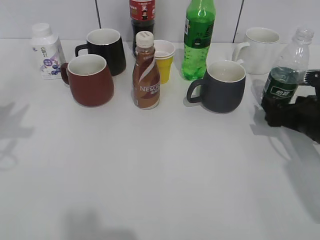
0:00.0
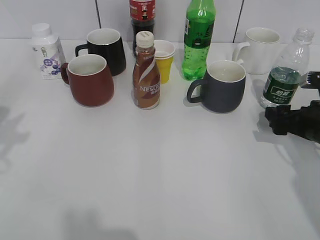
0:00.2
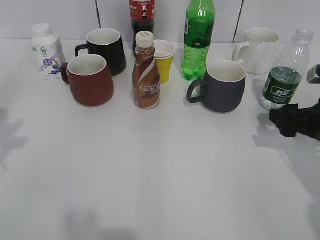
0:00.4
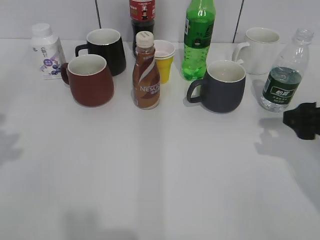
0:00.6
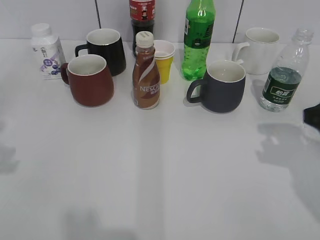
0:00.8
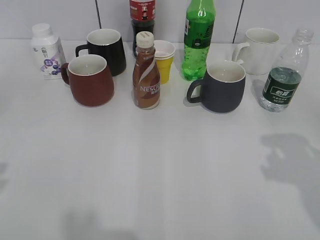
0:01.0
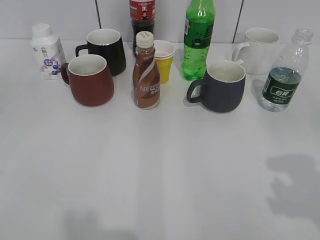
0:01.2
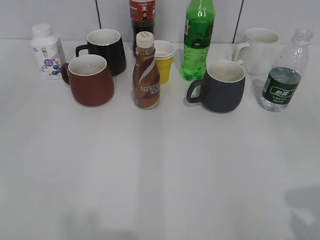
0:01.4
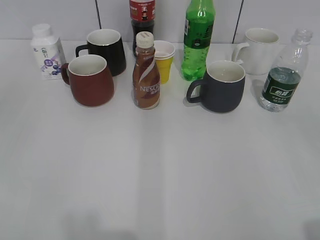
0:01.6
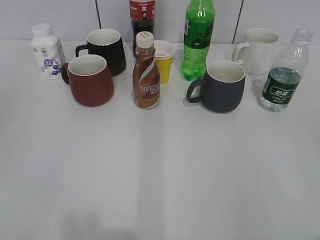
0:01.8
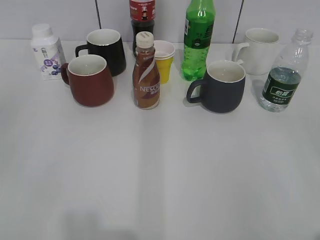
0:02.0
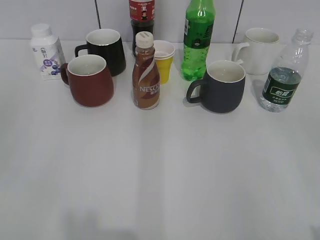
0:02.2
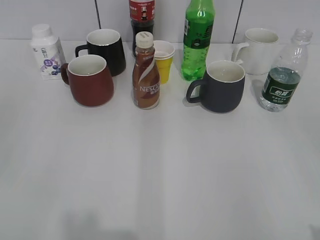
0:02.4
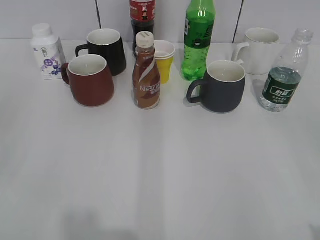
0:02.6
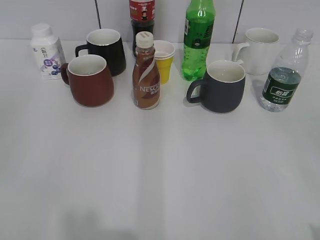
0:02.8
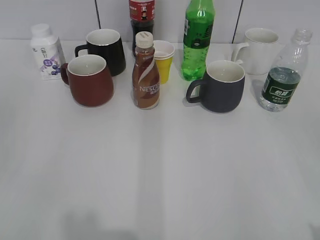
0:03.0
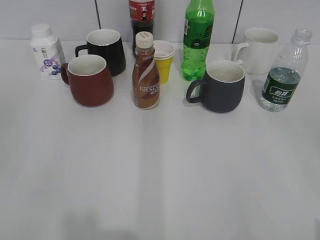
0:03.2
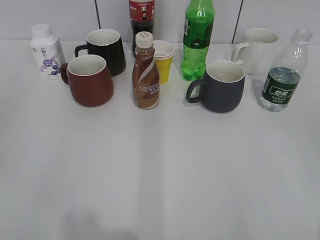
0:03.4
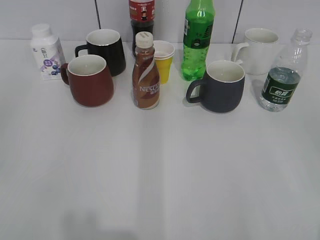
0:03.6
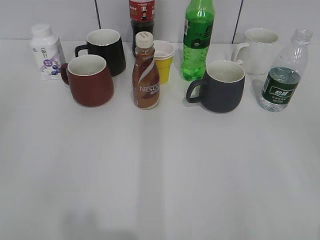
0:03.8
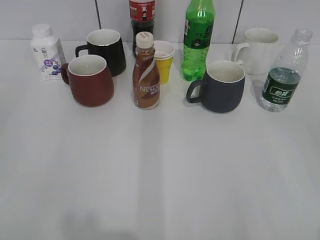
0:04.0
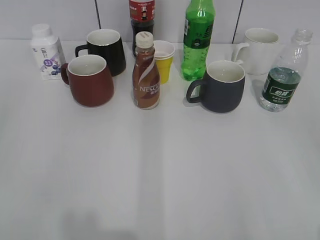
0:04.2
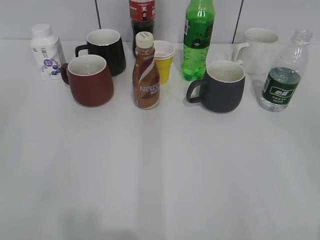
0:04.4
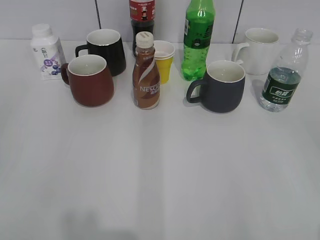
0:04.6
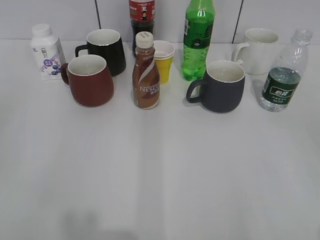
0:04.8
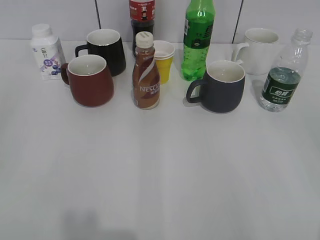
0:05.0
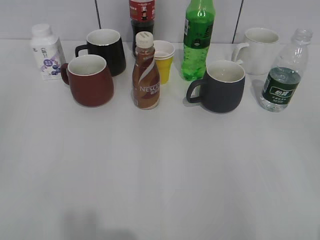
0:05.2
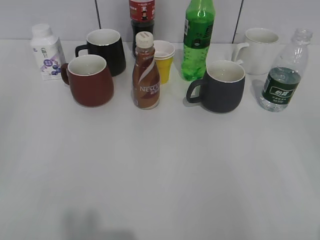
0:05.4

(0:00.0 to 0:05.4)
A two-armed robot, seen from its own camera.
0:00.0 - 0:01.4: The left gripper is displaced backward and upward by about 20 cm; the right gripper shifts about 30 cm backward and upward, and closes up.
0:04.0 - 0:05.4: Both grippers stay put.

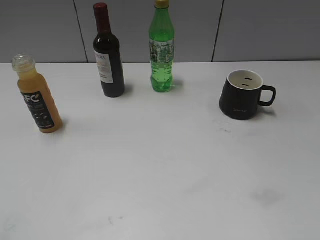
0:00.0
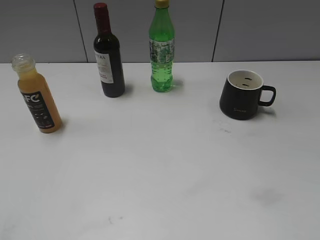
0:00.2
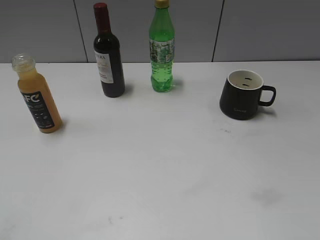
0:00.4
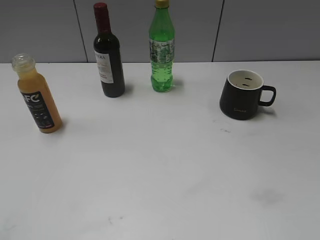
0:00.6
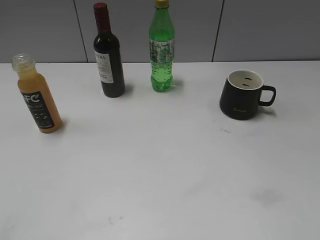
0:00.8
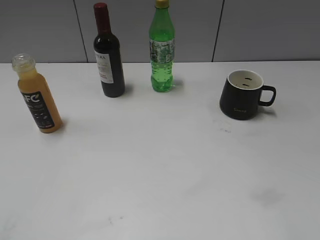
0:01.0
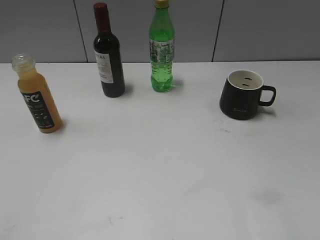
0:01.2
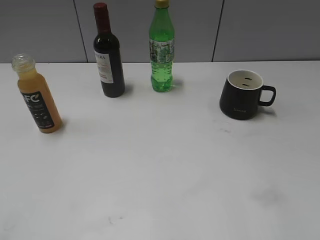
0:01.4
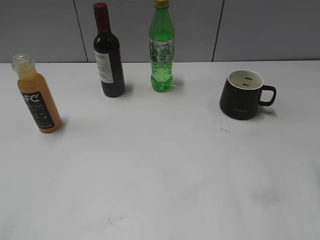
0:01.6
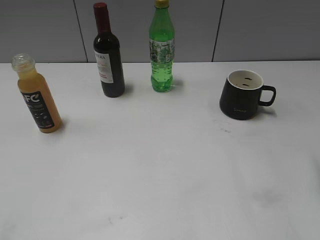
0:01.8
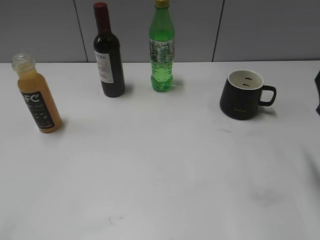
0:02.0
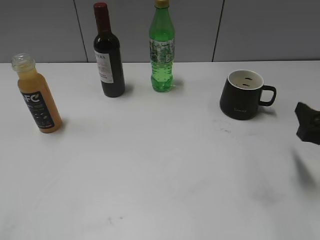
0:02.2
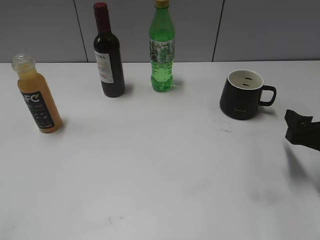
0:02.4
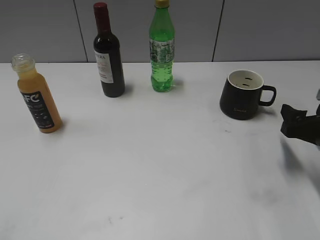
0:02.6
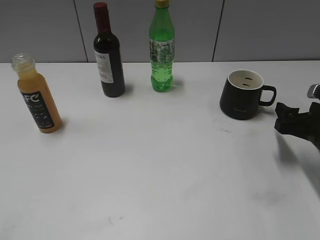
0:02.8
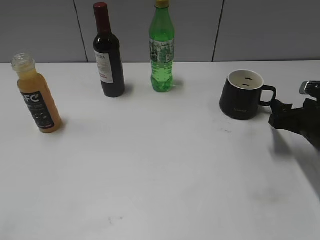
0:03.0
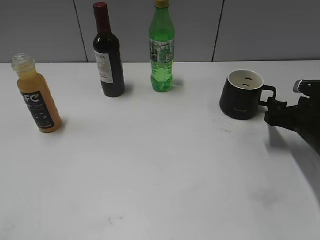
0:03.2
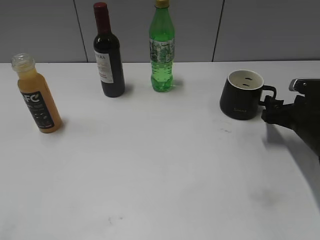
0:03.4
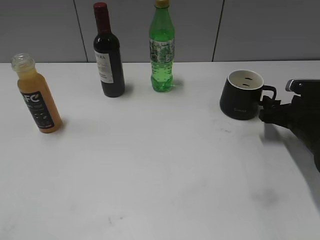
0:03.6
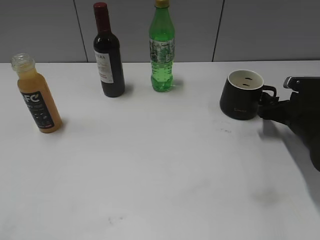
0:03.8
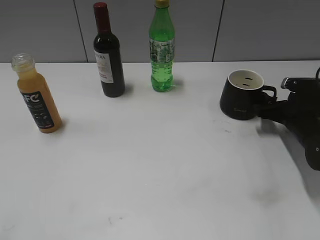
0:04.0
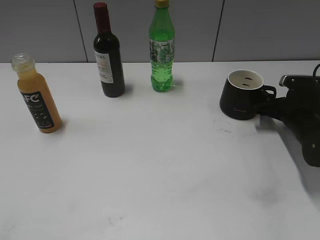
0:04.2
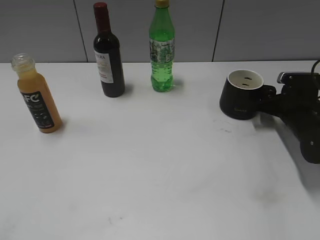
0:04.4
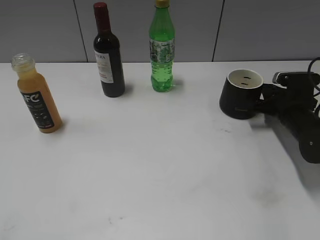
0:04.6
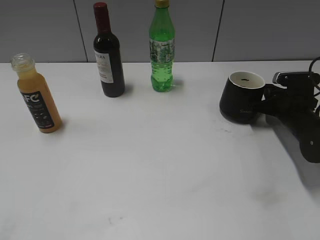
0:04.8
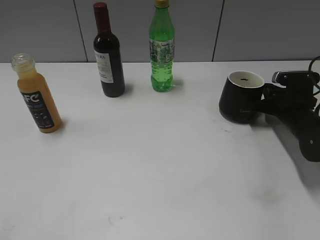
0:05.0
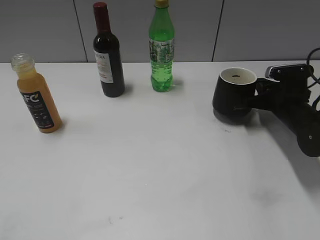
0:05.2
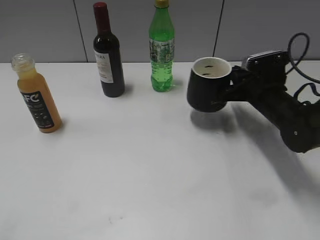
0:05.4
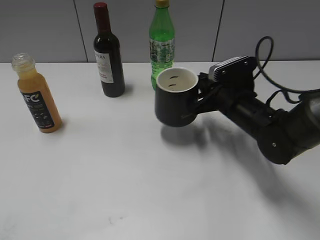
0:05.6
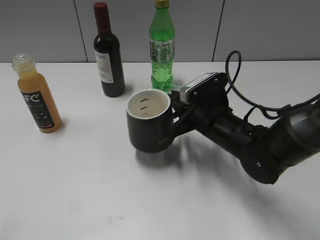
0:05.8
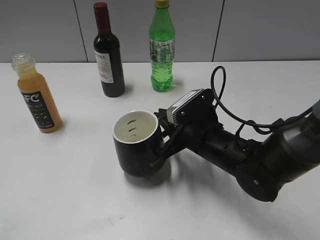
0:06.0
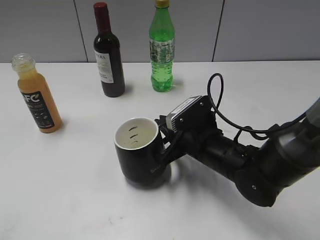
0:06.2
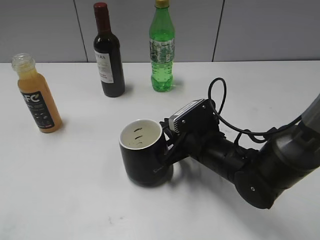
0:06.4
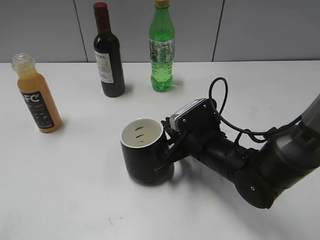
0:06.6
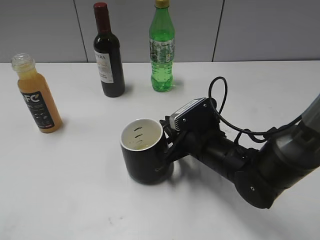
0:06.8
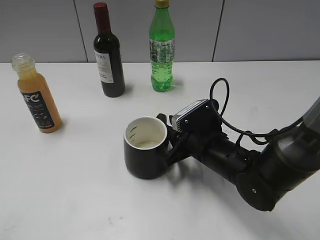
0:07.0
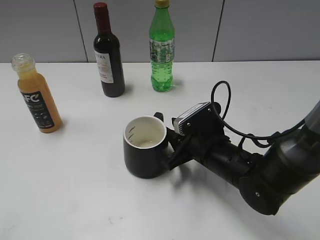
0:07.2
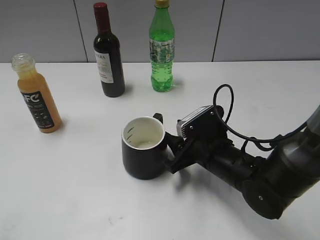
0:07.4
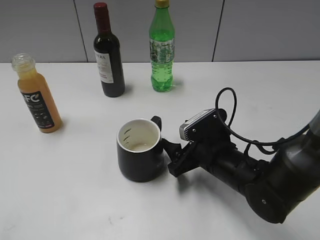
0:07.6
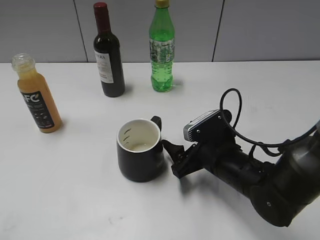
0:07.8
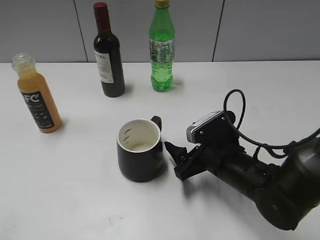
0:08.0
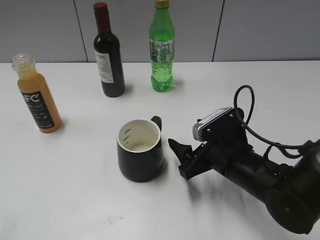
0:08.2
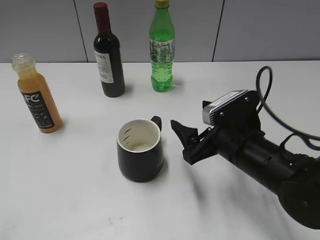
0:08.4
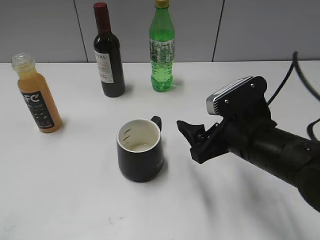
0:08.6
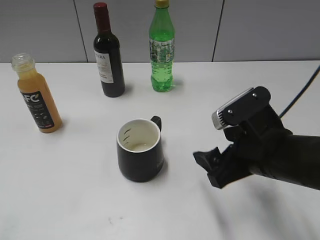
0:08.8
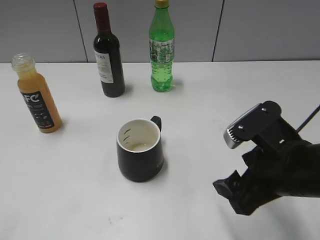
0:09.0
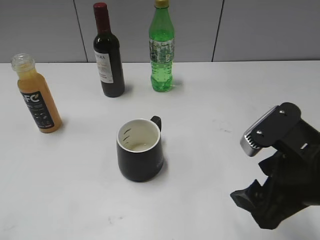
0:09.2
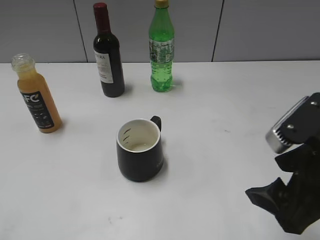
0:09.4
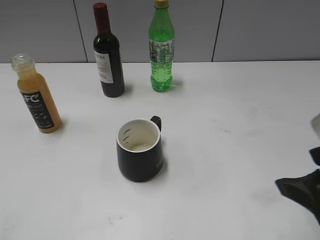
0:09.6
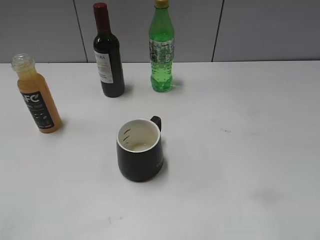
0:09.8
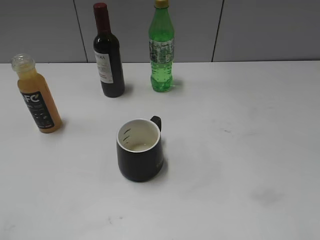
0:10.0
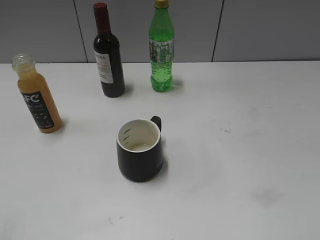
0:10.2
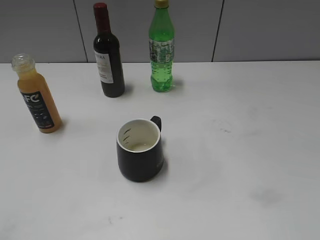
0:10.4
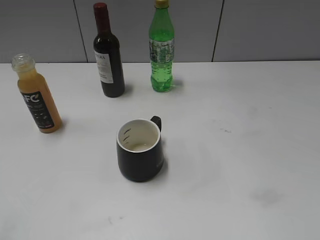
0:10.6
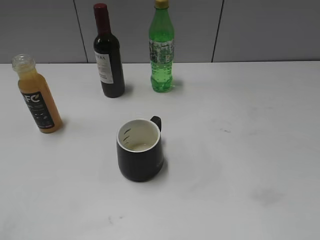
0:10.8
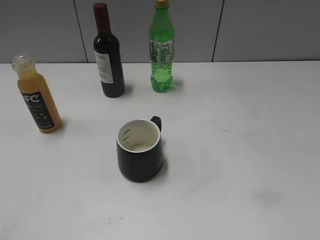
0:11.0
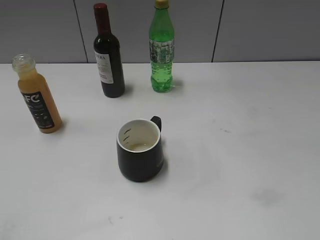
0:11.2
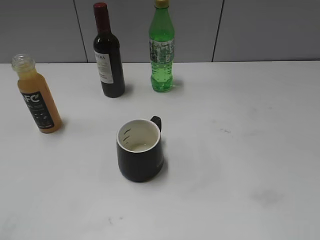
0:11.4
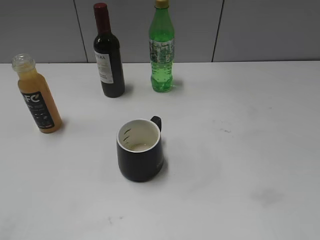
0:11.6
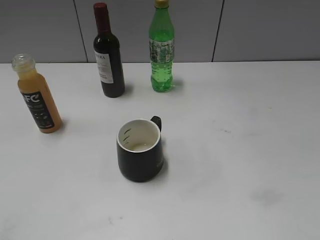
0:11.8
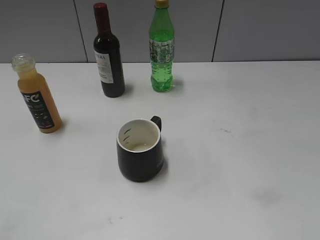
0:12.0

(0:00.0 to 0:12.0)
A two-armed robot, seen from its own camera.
Step, 0:02.0 - 0:04.6: Grasp the black cup with right gripper.
Step, 0:04.8 - 0:07.4: Place the black cup in the center of view with right gripper.
0:01.6 - 0:03.0: The right gripper travels downward and forward by roughly 20 cm.
0:03.0 - 0:04.4: The right gripper shifts approximately 10 cm forward.
0:04.4 - 0:06.0: The right gripper goes roughly 20 cm to the left and backward, and closes up.
0:06.0 - 0:07.6: The right gripper opens its fingers.
0:07.6 - 0:09.0: The right gripper travels upward, backward and to the right by roughly 15 cm.
0:09.0 - 0:10.4: The right gripper heads backward, to the right and upward, covering about 20 cm.

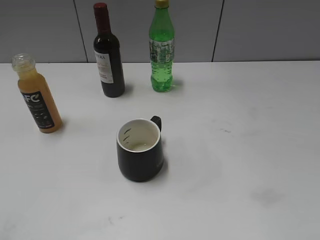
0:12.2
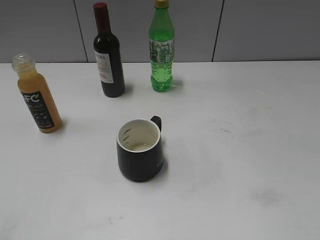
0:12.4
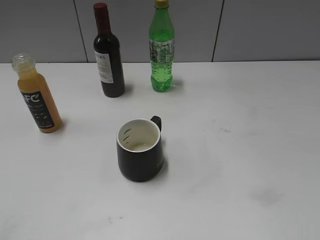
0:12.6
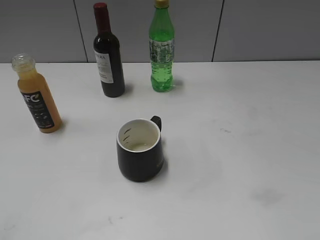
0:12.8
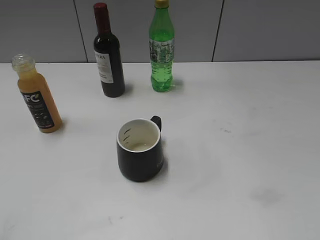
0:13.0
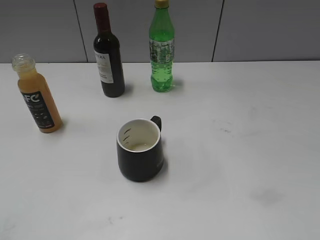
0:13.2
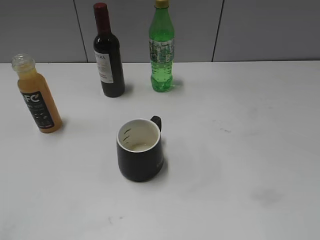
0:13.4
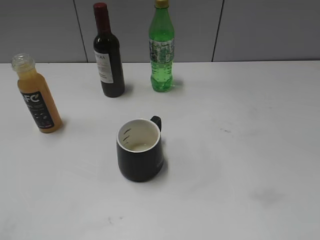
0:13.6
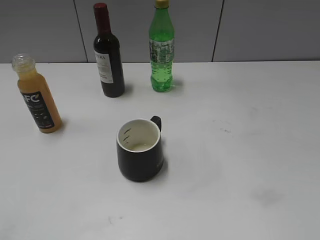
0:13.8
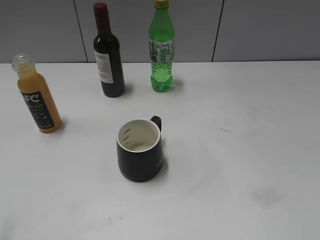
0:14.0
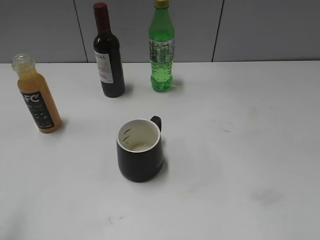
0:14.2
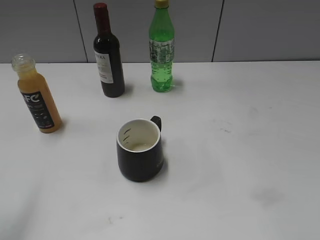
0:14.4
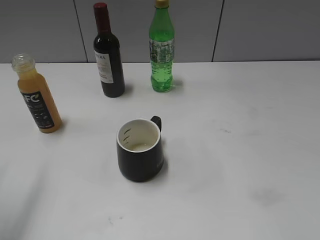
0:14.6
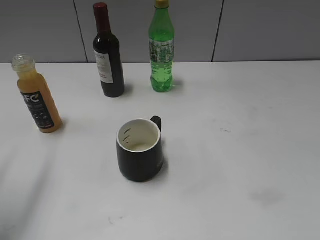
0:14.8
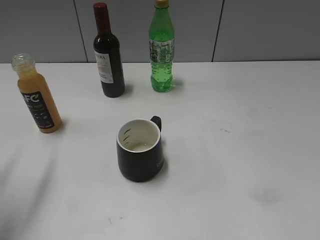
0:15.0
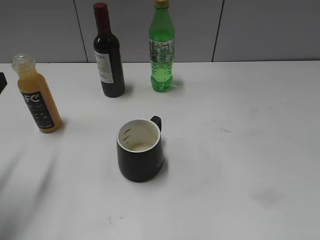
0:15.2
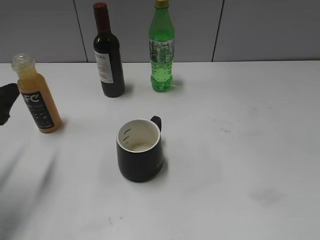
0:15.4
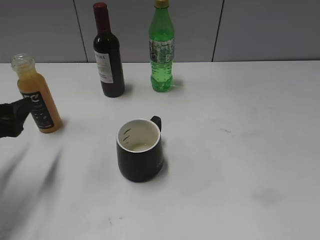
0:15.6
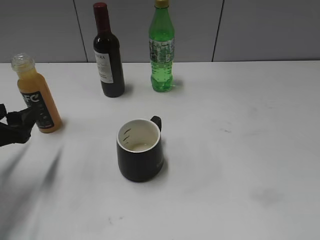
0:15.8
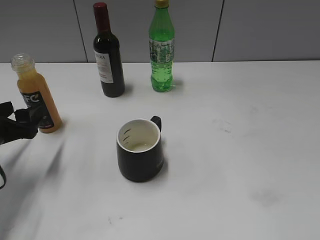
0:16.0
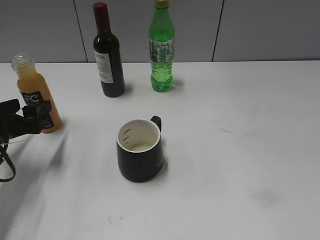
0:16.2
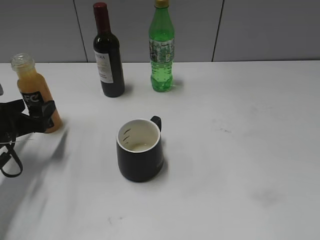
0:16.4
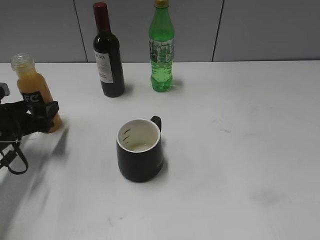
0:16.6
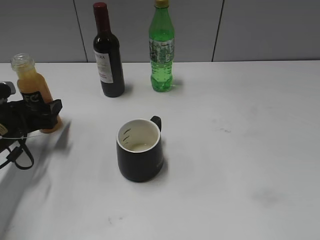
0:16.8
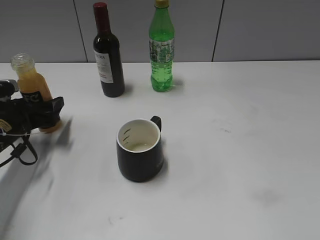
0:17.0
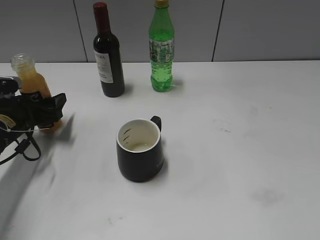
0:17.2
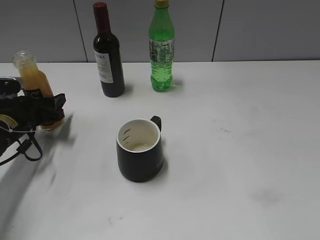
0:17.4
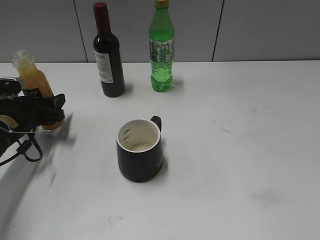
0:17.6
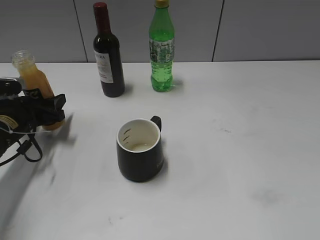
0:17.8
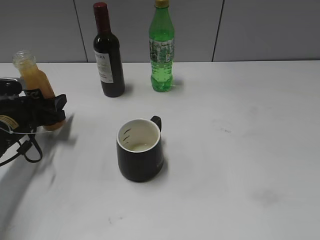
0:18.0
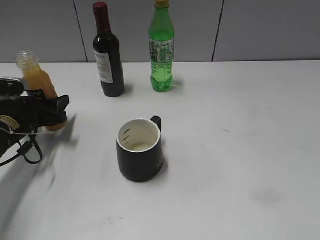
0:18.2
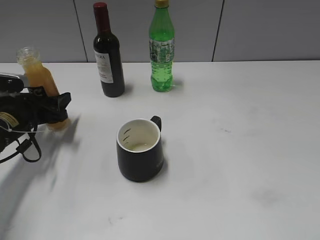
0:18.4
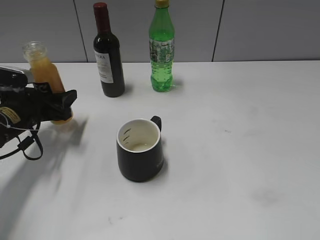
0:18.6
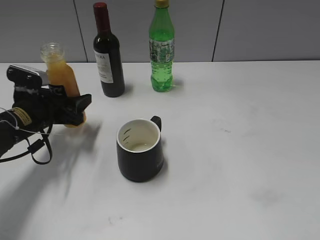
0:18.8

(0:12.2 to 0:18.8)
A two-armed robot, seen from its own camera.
Step, 0:12.2 - 0:17.6: Grasp the bottle with orange juice with left gripper.
0:13.8 - 0:15.4: The left gripper goes approximately 25 cm forward and downward.
0:15.4 - 0:17.2: The left gripper is displaced forward and downward by approximately 15 cm.
0:17.2 - 0:18.8: The left gripper shifts by some 5 cm, and closes its fingers.
